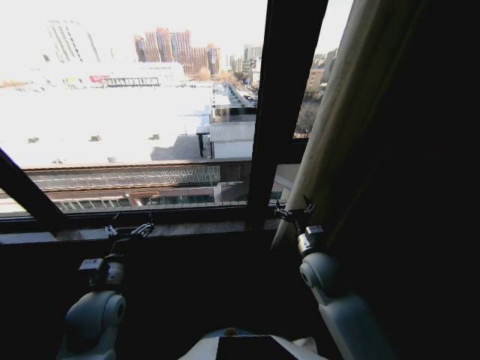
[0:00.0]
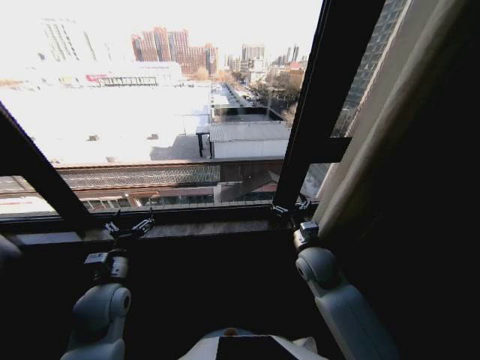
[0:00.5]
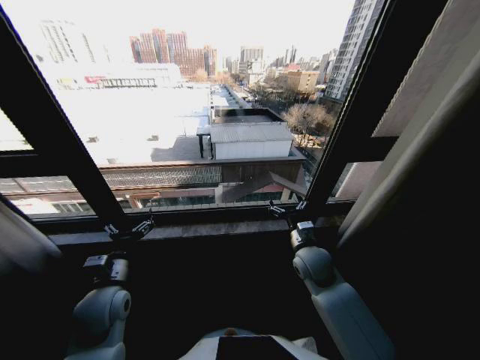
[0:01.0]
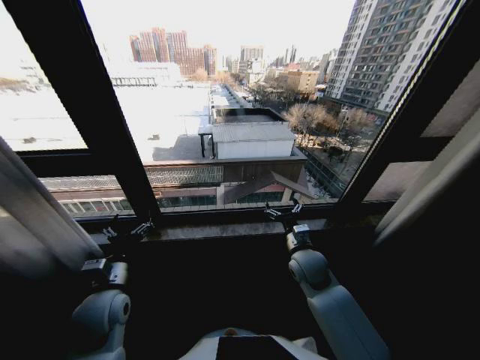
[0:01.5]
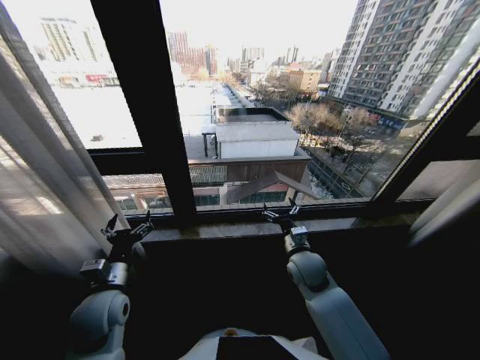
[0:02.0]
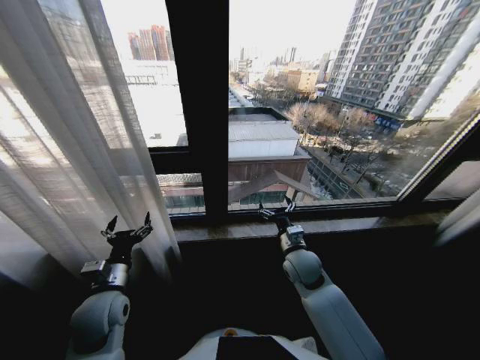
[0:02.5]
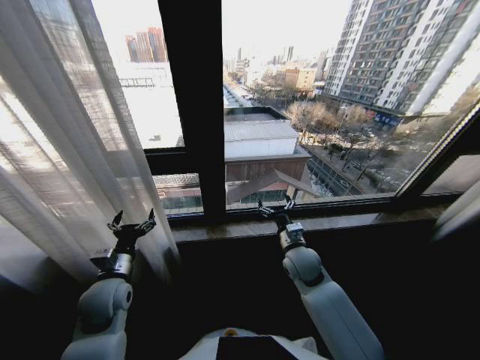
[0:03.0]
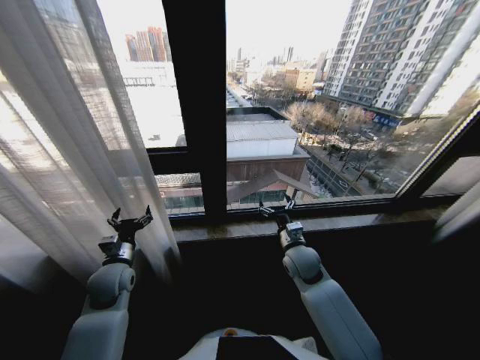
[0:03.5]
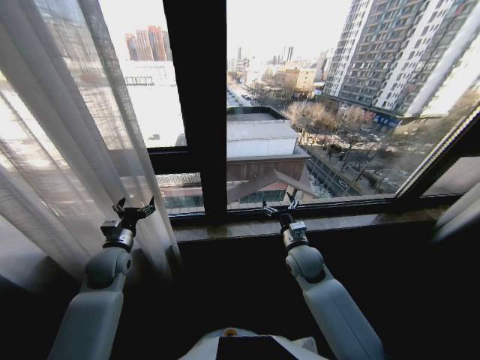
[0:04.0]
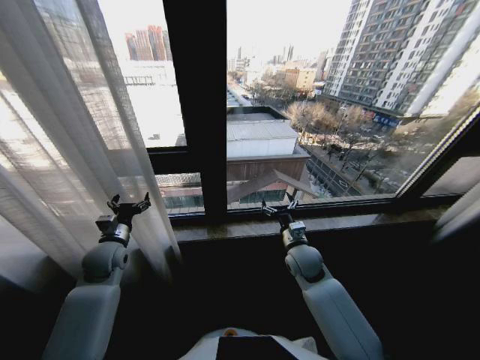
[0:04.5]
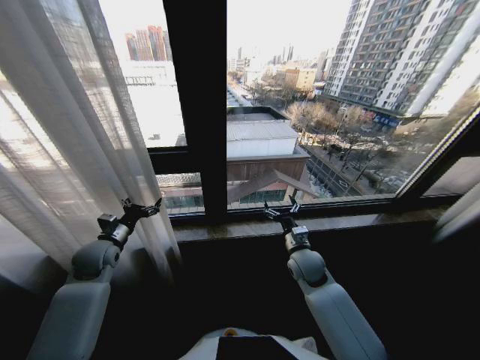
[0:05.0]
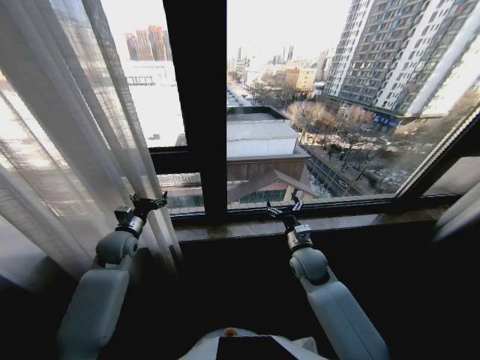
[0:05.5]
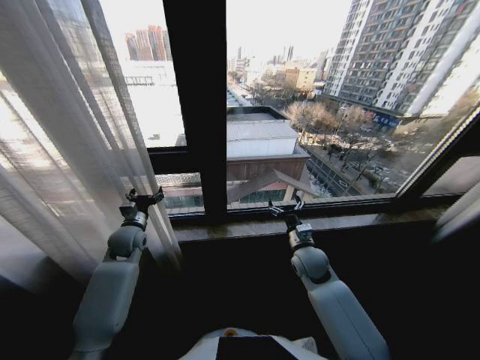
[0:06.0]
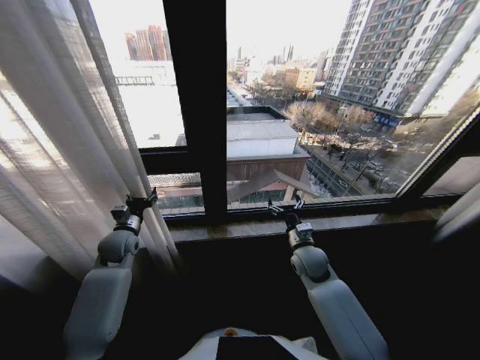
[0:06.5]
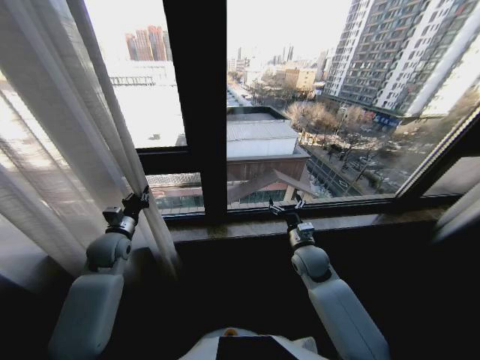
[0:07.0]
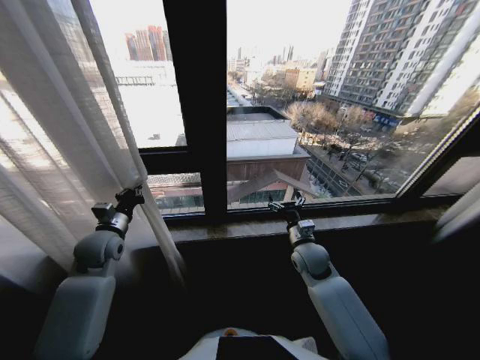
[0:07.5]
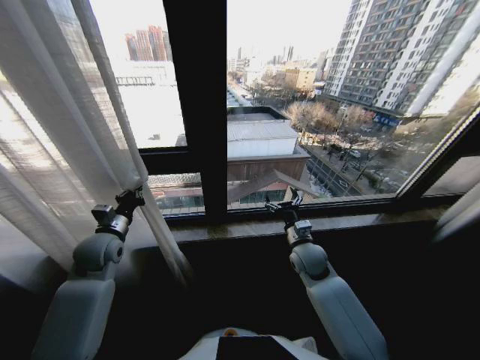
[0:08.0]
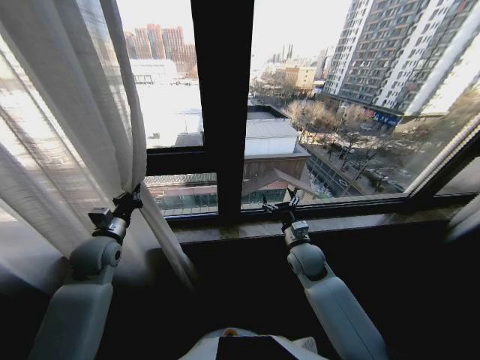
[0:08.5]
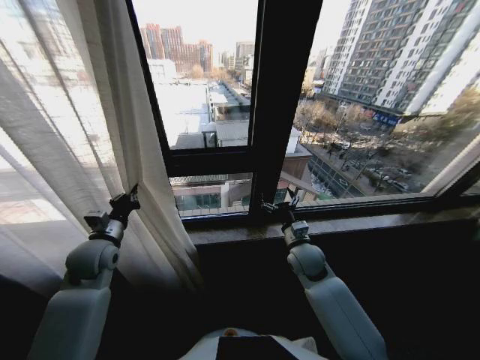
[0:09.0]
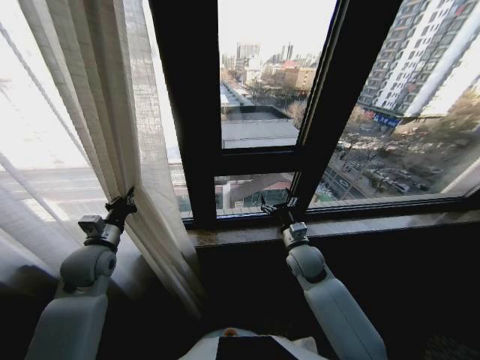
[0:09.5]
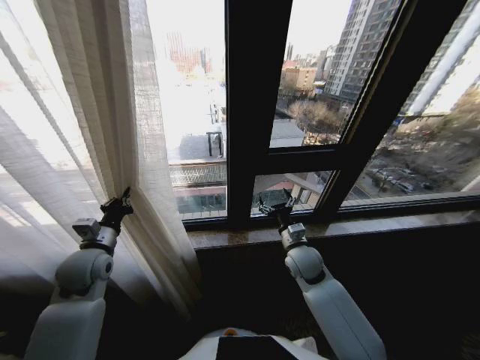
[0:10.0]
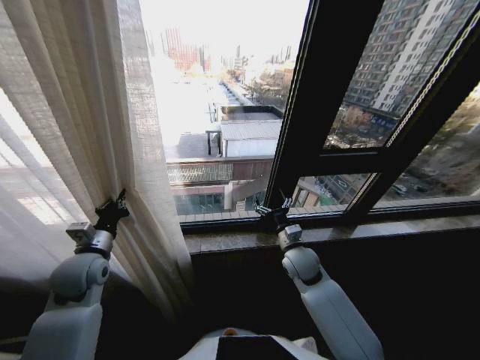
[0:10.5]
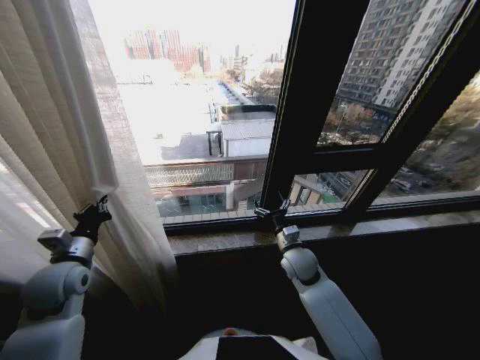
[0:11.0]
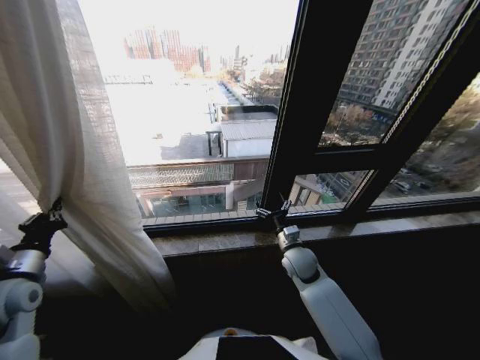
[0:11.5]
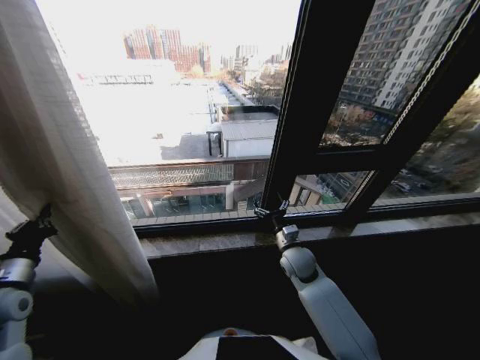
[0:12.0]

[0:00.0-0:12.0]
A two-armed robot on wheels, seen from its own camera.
Task of the whole recording: Open the curtains by pulling them apart, changing their state from closed to fully open.
0:02.0 to 0:04.0: The left gripper heads forward, covering some 10 cm.
0:04.0 to 0:06.0: The left gripper is displaced forward by some 5 cm.
0:06.0 to 0:08.0: The left gripper goes about 10 cm backward and upward, and closes its fingers.
0:10.0 to 0:12.0: The left gripper shifts roughly 15 cm to the left and backward.

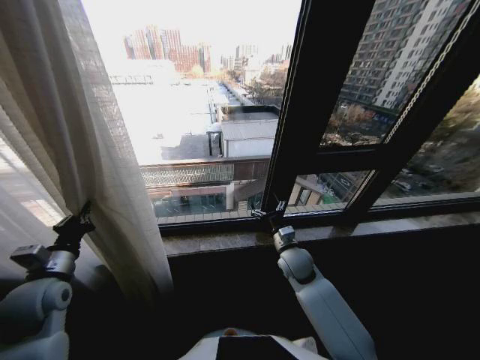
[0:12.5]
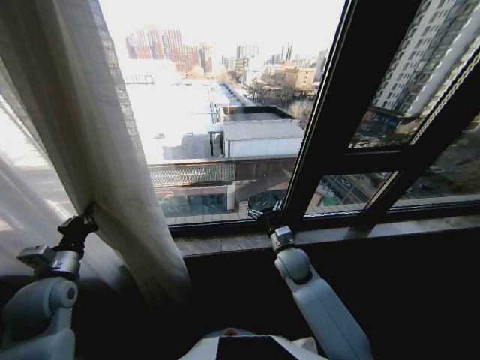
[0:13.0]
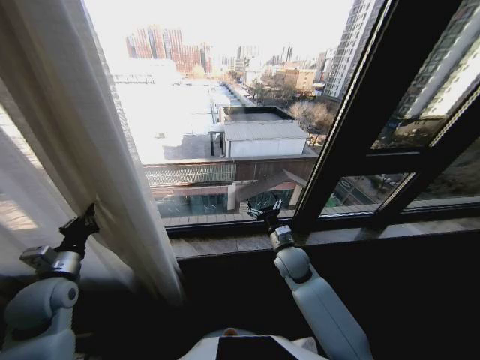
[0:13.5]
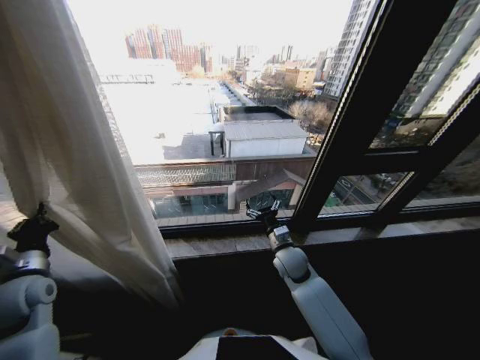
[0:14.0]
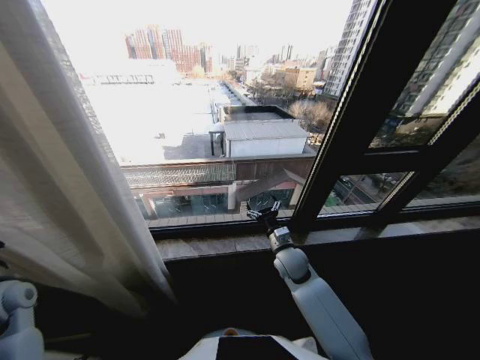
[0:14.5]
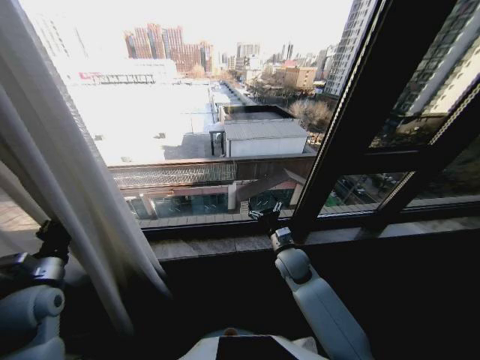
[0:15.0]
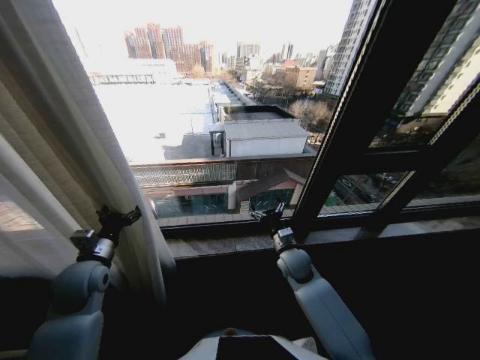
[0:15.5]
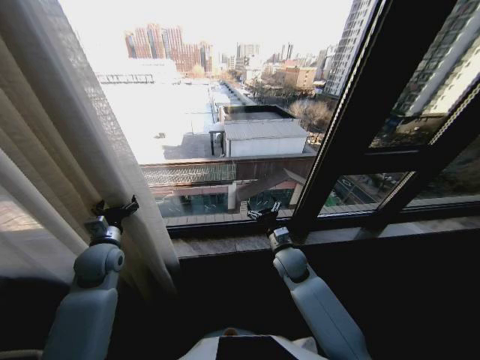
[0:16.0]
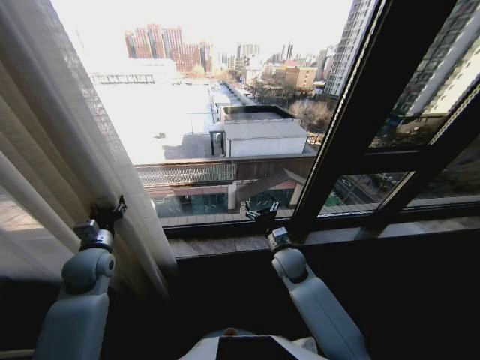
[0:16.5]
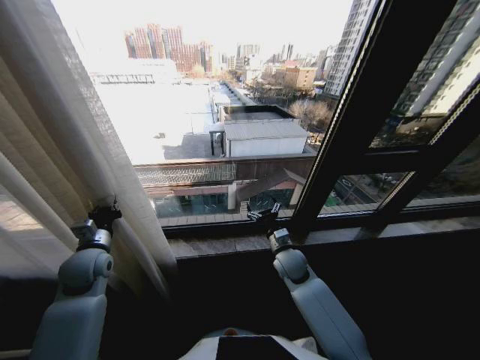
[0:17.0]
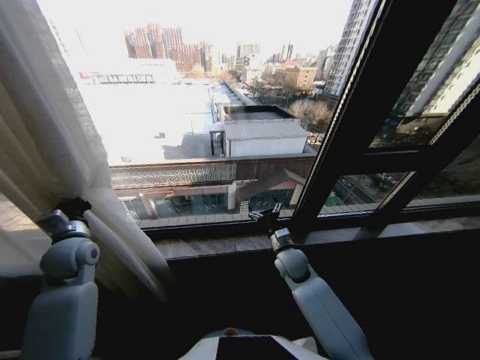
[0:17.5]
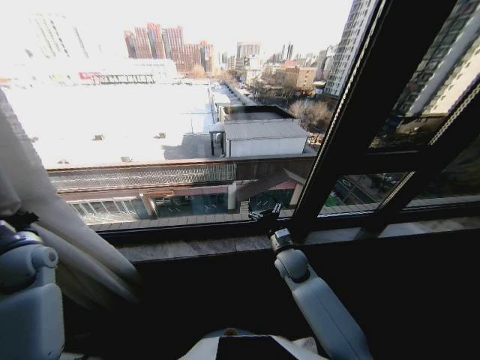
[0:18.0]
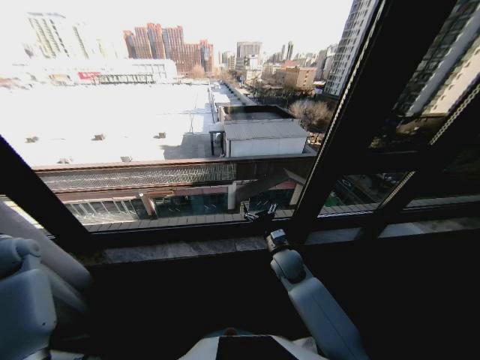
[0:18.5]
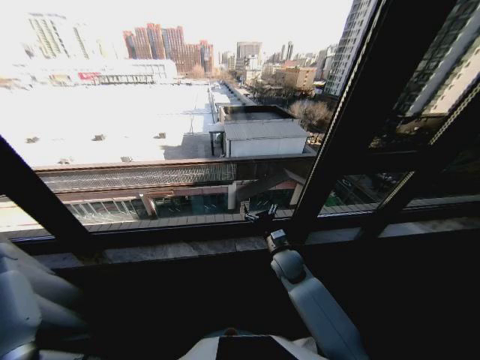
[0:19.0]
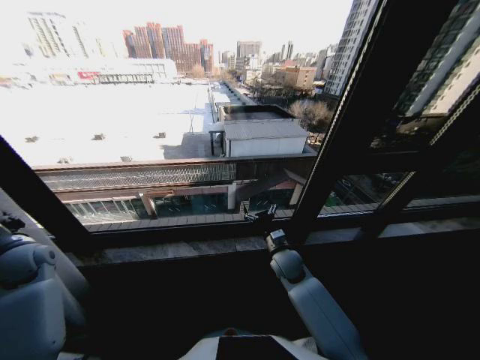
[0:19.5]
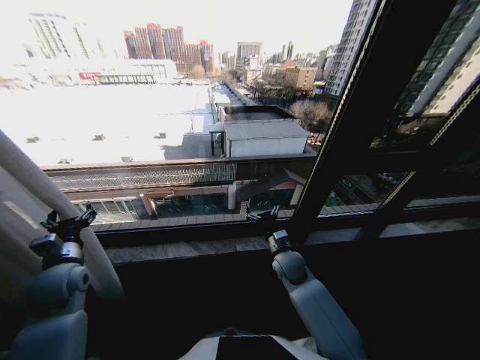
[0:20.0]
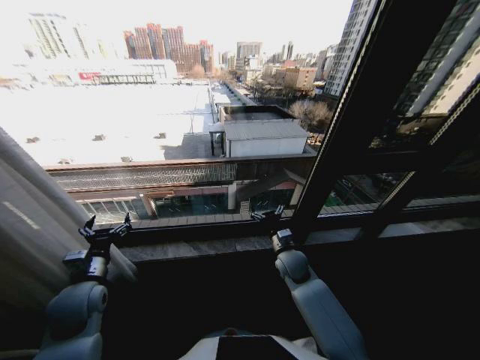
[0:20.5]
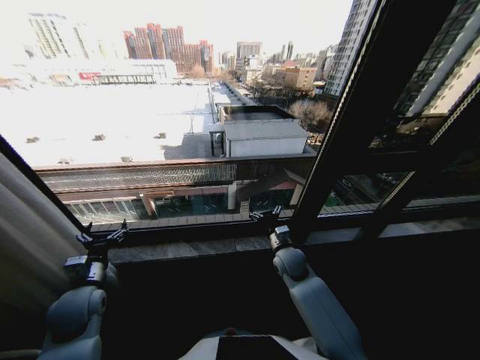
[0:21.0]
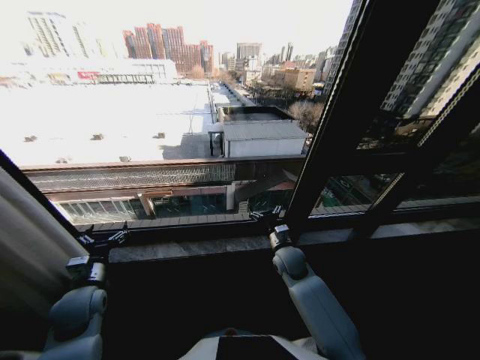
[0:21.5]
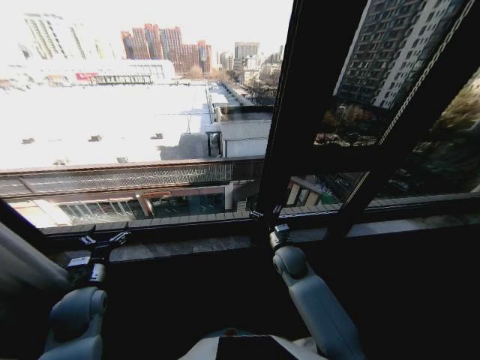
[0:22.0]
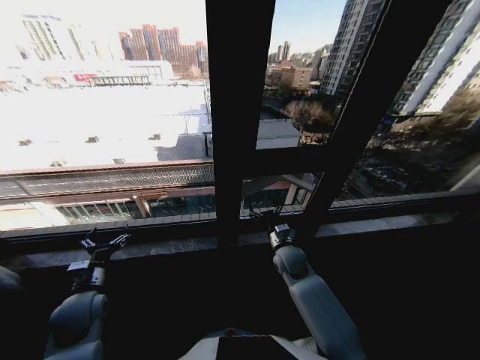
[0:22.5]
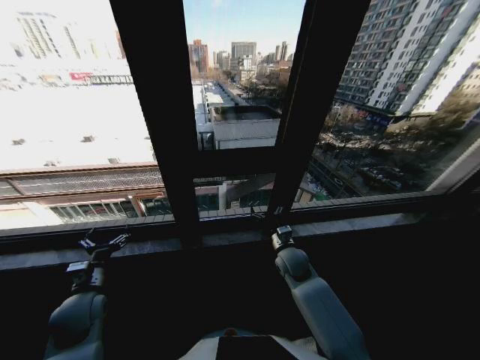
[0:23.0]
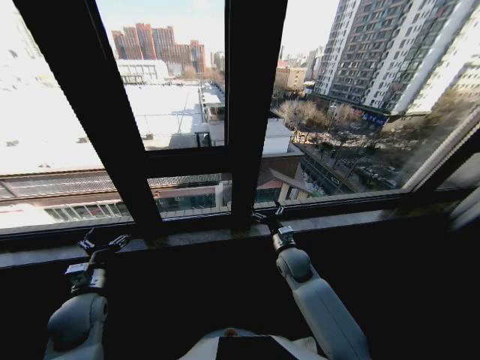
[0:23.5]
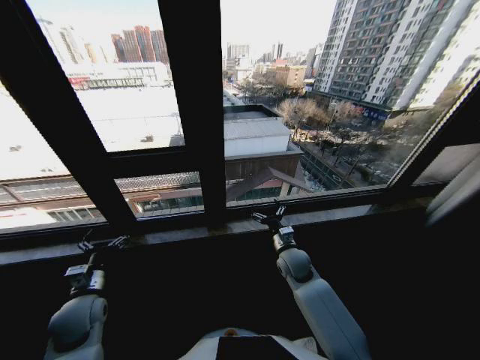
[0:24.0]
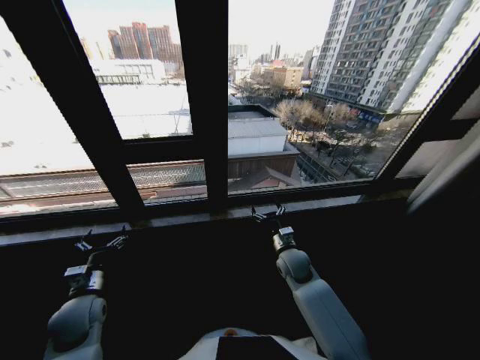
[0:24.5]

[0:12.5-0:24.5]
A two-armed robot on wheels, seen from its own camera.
Task of the whole recording: Open the curtains by pulling them apart, changing their state from closed to fully open.
0:12.5 to 0:14.5: The left gripper is displaced to the left by approximately 5 cm.
0:14.5 to 0:16.5: The left gripper is displaced to the right and forward by roughly 15 cm, and opens up.
0:16.5 to 0:18.5: The left gripper goes about 20 cm to the left, and closes.
0:18.5 to 0:20.5: The left gripper heads to the right and backward, covering roughly 25 cm, and opens up.

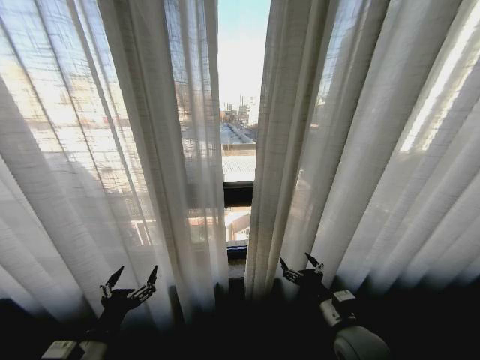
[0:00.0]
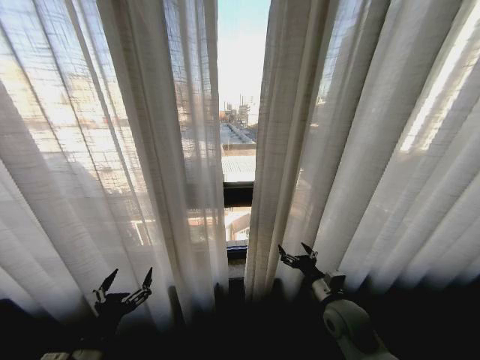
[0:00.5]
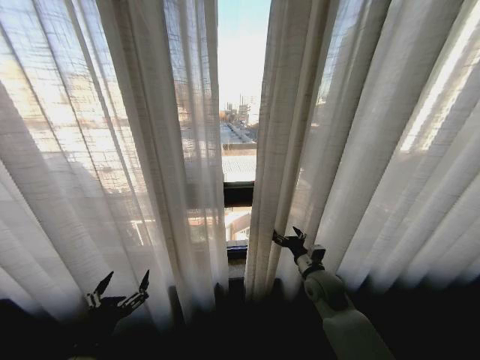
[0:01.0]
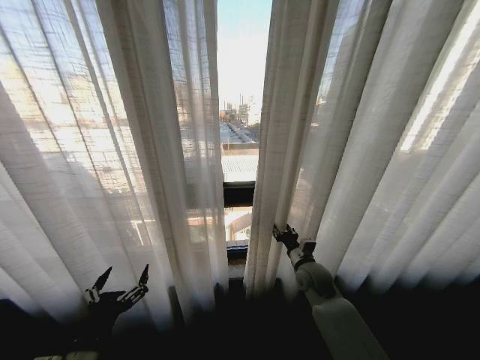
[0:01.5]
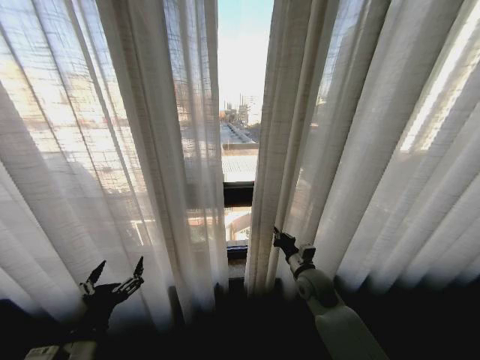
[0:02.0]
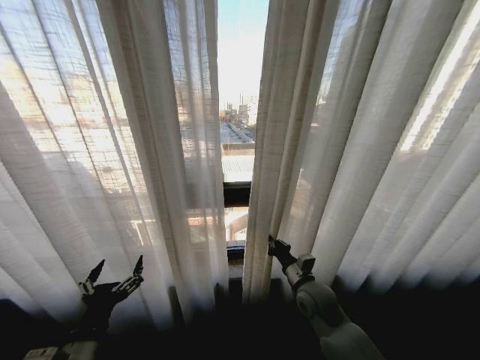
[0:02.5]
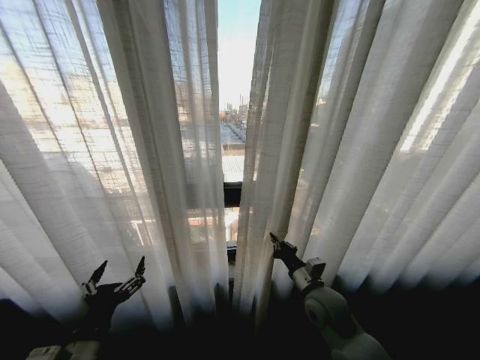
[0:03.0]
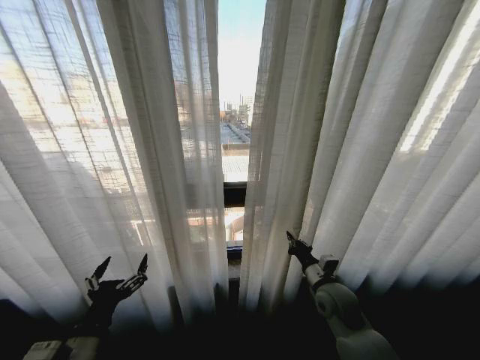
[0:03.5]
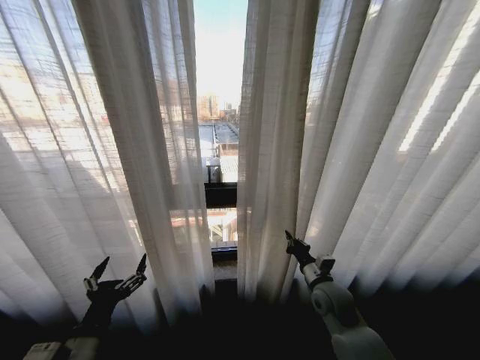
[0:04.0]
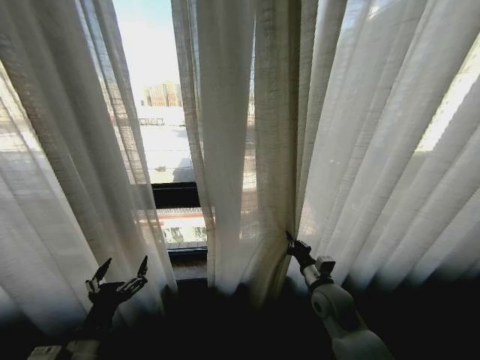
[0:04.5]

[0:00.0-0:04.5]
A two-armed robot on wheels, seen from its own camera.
Task of the whole recording: Open the curtains by pulling them apart, changing their state from closed to fully open.
0:00.0 to 0:02.0: The right gripper goes some 15 cm forward, and closes its fingers.
0:02.0 to 0:04.5: The right gripper travels backward by some 5 cm.
